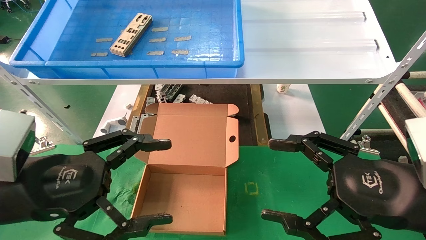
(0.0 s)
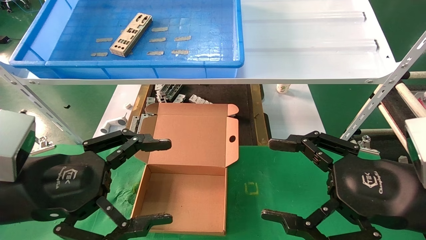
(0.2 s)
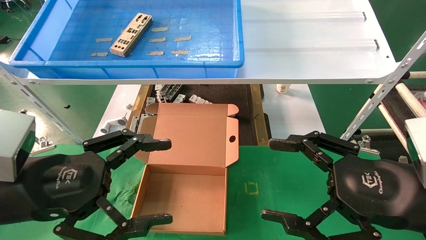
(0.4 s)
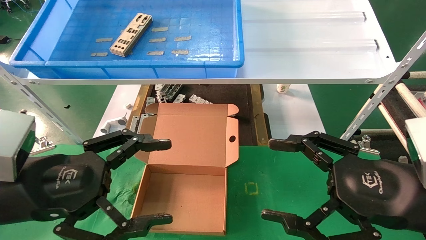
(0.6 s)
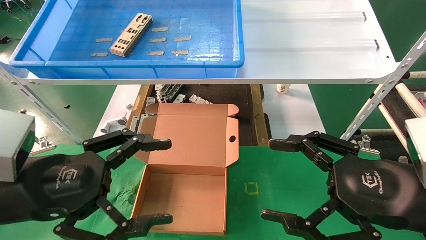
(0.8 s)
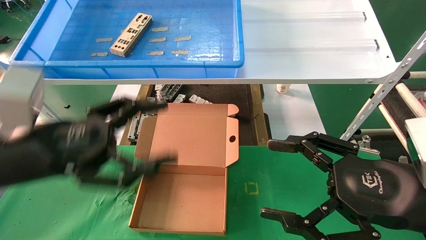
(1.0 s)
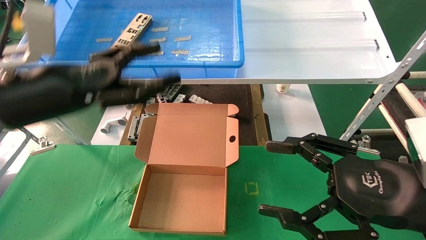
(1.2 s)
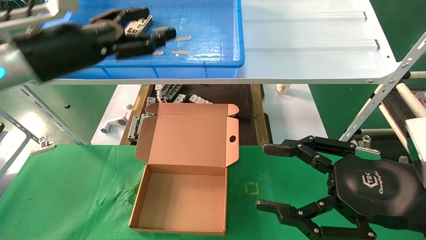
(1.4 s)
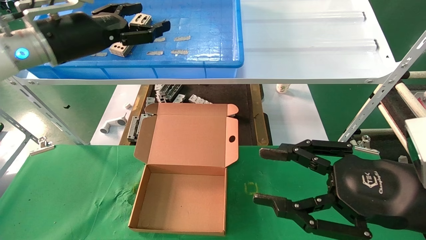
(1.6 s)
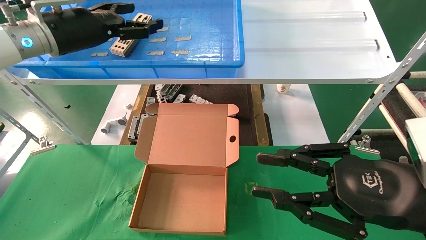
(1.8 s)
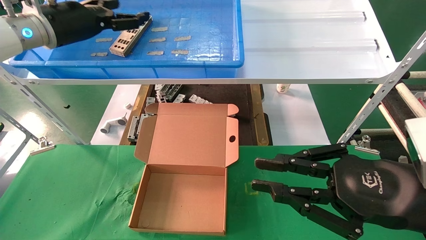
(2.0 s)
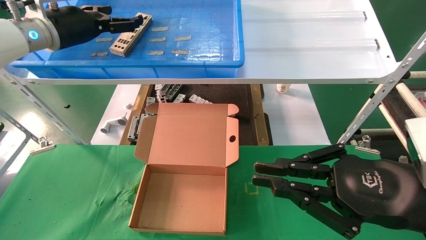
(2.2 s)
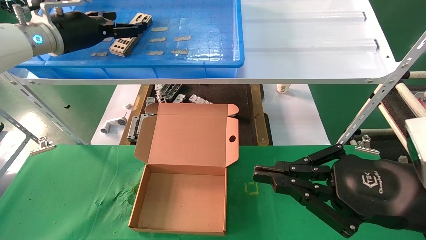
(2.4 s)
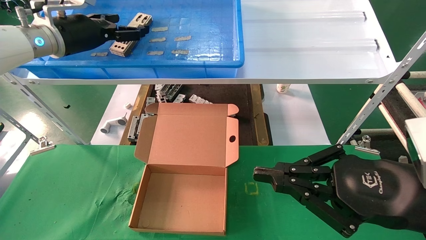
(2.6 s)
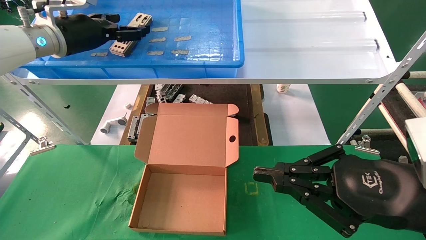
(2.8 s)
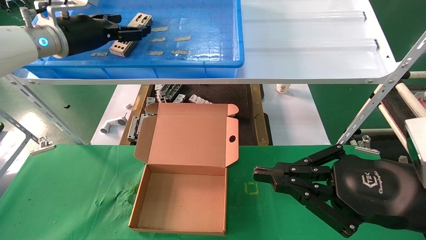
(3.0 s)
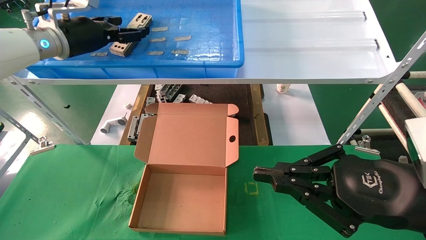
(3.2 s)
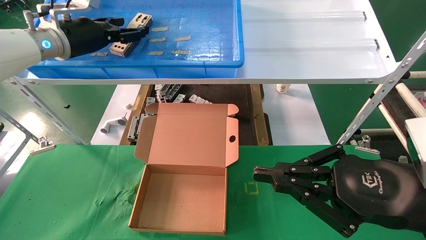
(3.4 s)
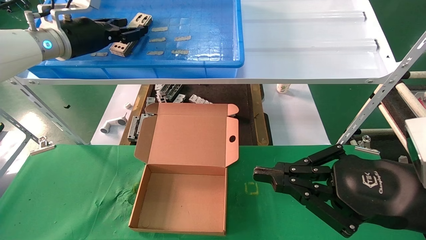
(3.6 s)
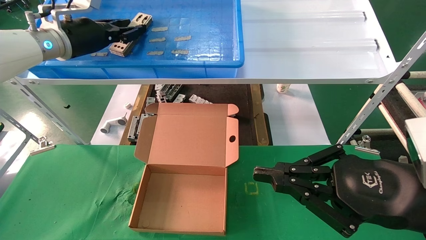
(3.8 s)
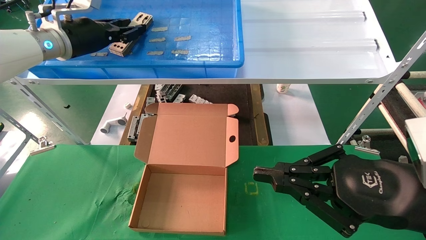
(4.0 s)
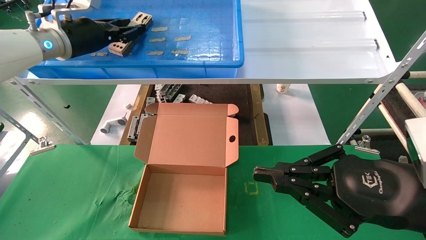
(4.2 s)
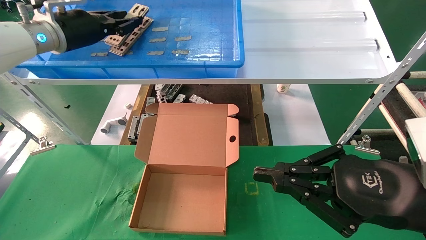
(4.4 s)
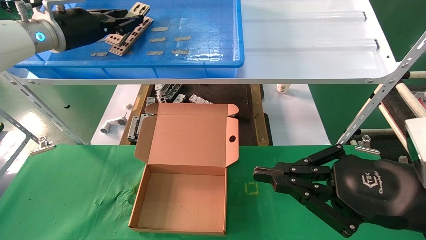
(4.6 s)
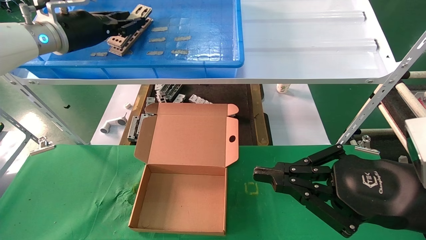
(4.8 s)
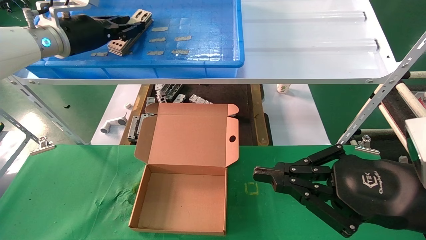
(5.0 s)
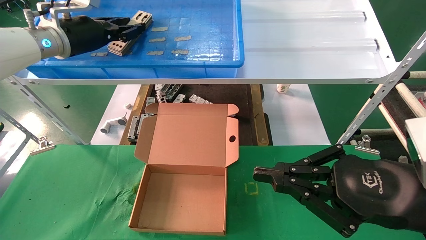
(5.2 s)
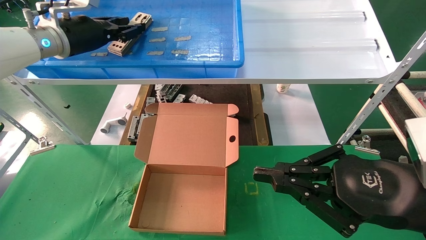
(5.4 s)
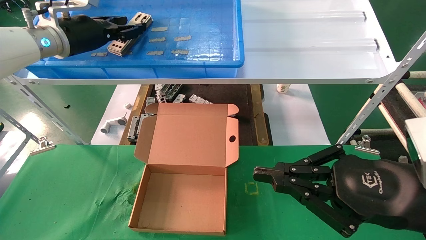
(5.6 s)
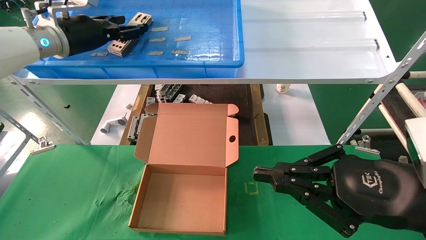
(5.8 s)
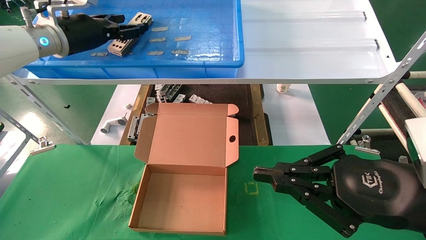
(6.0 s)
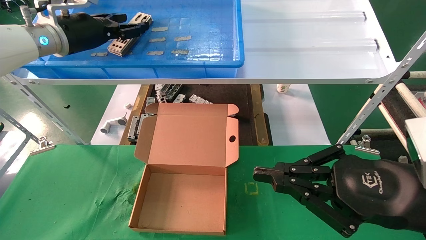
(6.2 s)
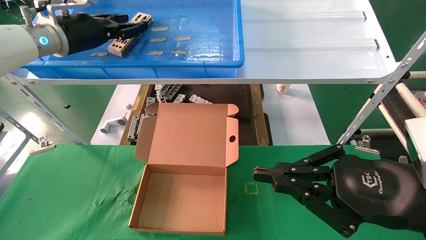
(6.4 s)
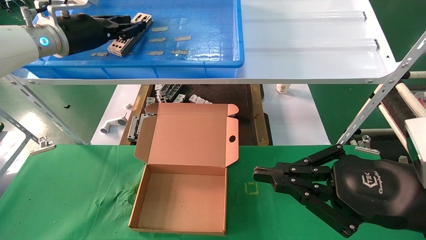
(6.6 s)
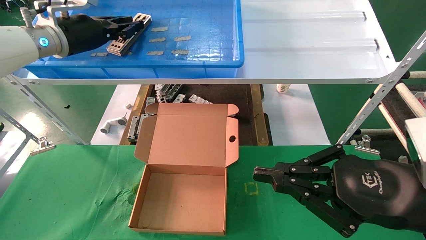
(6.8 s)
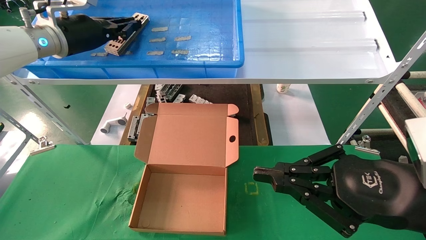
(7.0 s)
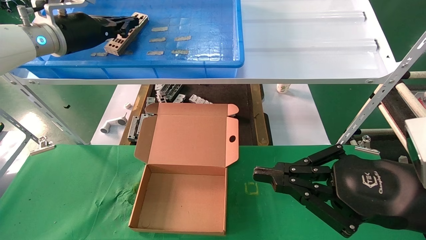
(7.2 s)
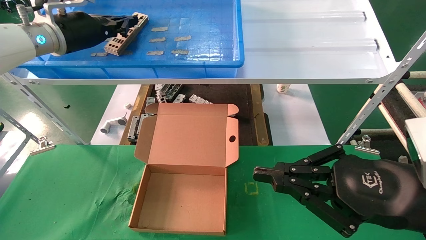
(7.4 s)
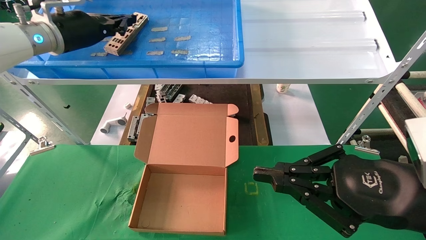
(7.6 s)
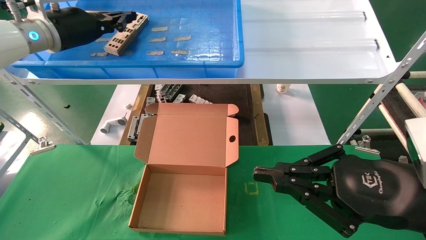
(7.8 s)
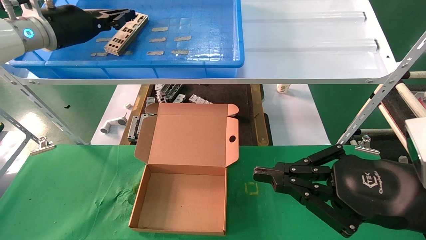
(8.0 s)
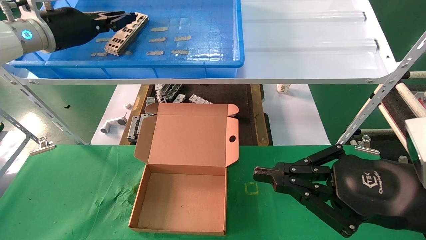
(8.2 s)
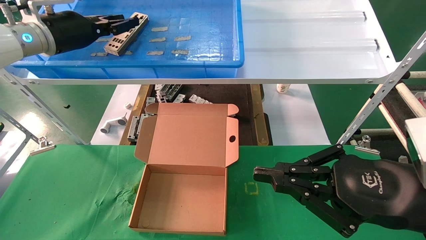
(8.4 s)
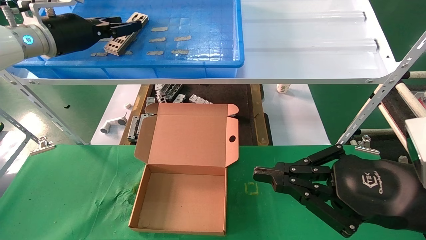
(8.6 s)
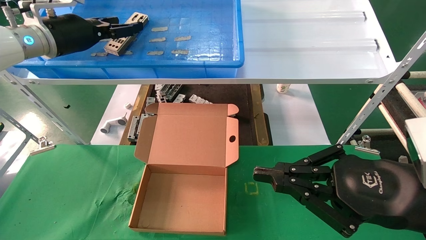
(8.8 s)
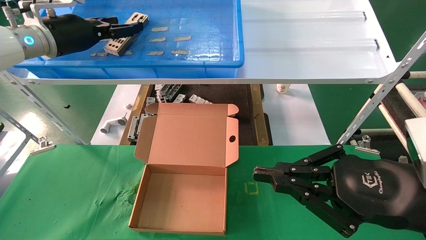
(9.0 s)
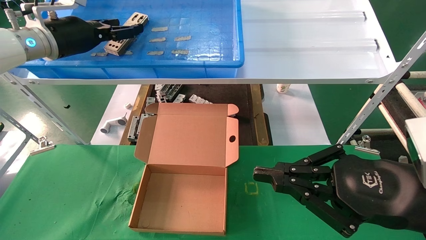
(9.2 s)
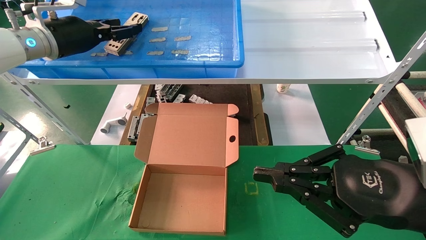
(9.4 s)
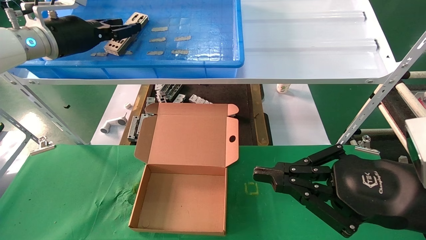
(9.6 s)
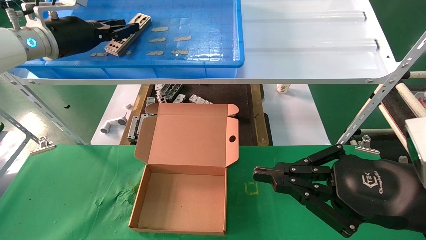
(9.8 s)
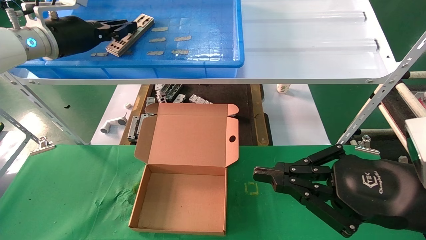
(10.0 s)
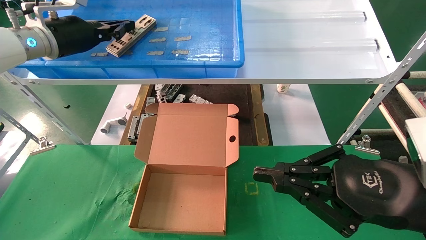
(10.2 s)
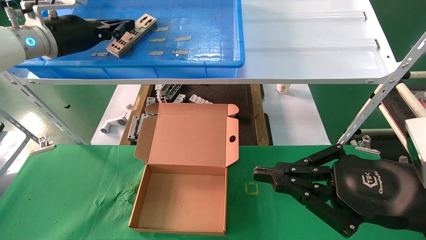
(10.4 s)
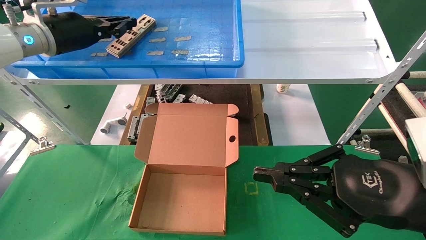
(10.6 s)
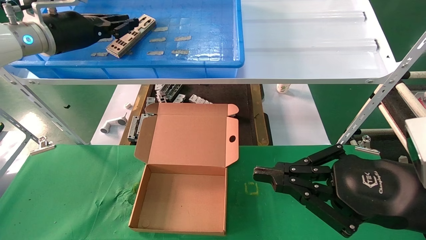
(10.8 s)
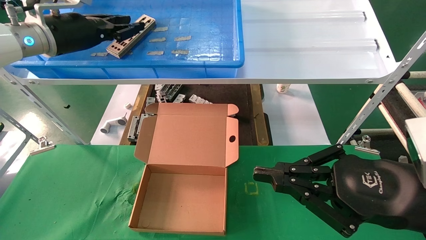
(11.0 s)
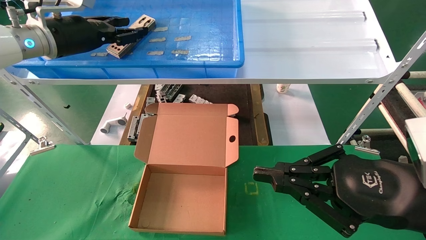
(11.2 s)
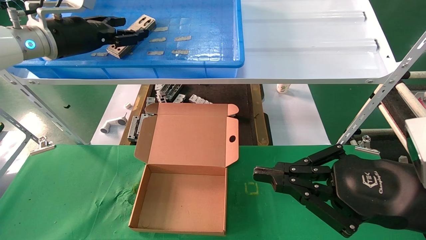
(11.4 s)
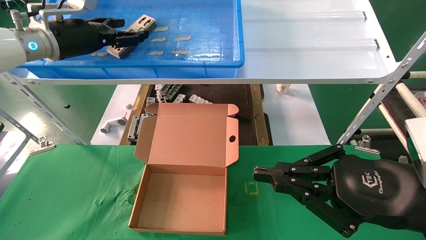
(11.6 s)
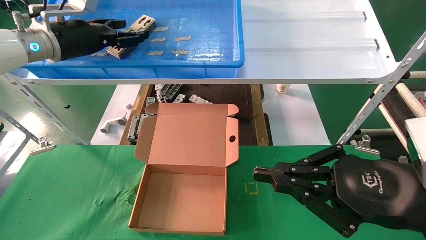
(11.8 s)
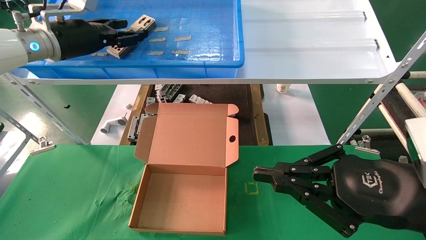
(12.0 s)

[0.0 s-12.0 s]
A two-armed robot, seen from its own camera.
Task of the whole recording: pick up the parts on the tray and put them in the cardboard box.
0.0 to 1.6 s: The left gripper travels forward and upward by roughly 25 cm.
1.6 to 3.0 s: The right gripper closes its fingers, while the left gripper shifts some 5 cm forward.
3.0 to 4.4 s: The left gripper closes up.
4.4 to 6.0 s: Both grippers stay put.
6.0 to 7.6 s: The left gripper closes up.
7.6 to 9.0 s: The left gripper opens up.
9.0 to 10.4 s: The left gripper closes up.
10.4 to 12.0 s: The left gripper opens.

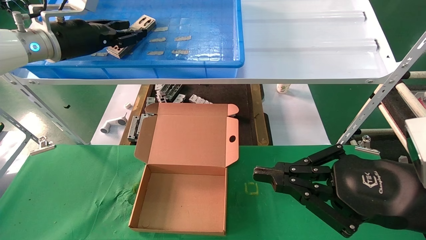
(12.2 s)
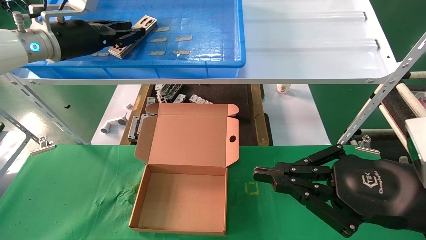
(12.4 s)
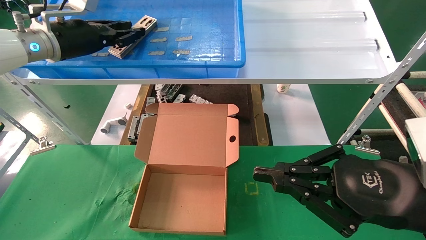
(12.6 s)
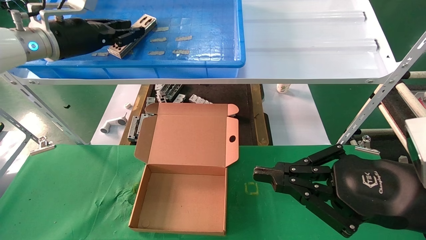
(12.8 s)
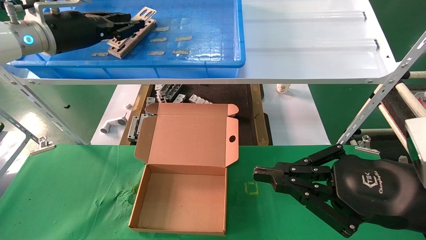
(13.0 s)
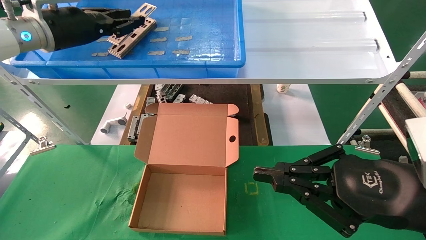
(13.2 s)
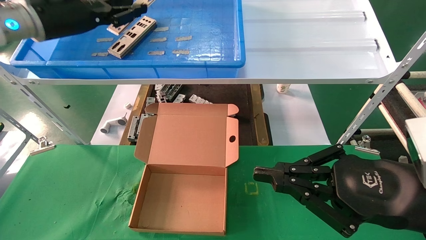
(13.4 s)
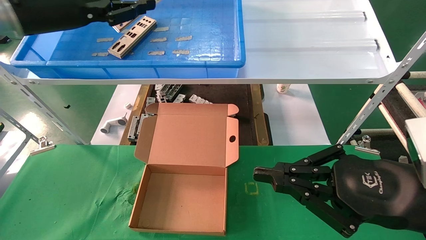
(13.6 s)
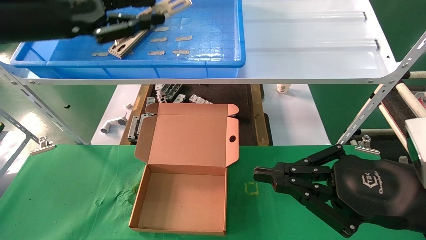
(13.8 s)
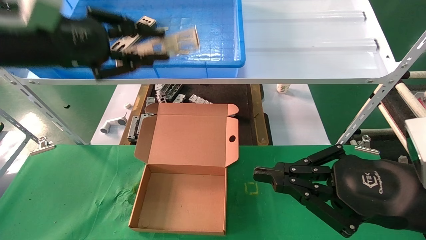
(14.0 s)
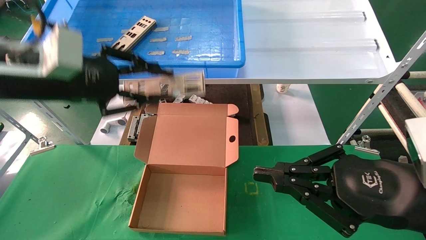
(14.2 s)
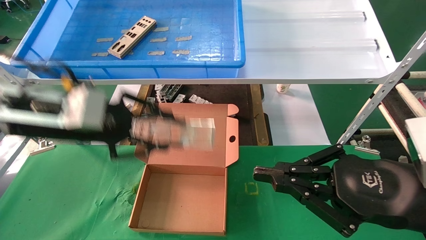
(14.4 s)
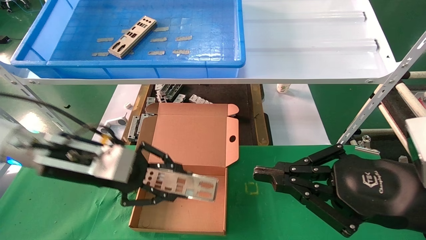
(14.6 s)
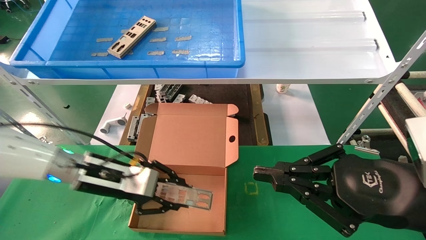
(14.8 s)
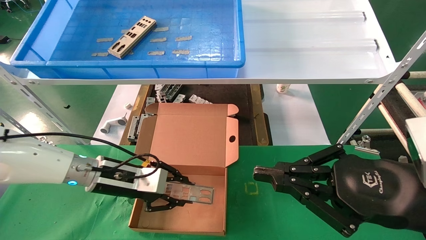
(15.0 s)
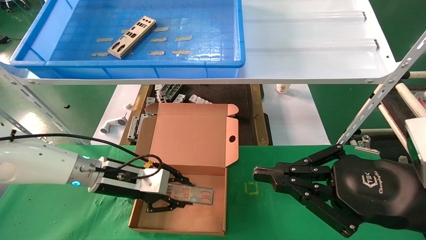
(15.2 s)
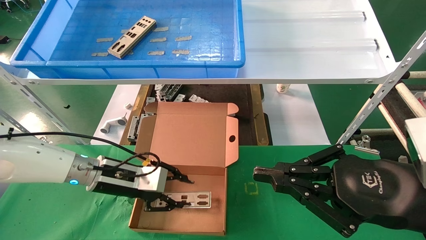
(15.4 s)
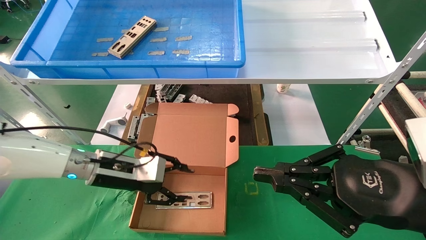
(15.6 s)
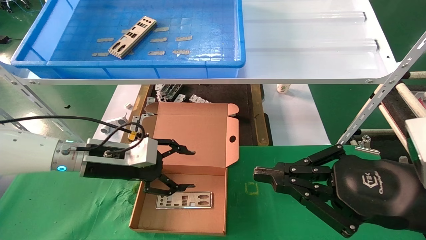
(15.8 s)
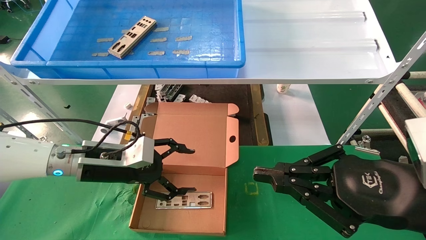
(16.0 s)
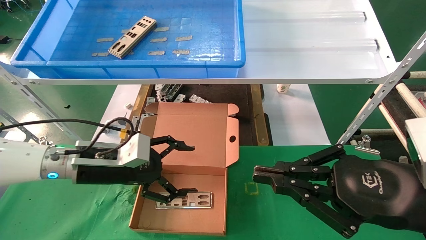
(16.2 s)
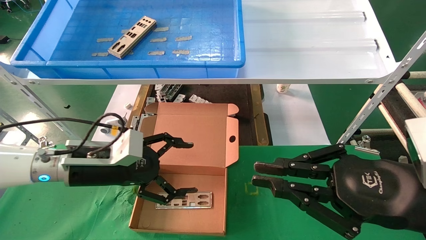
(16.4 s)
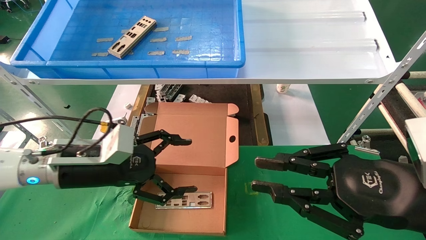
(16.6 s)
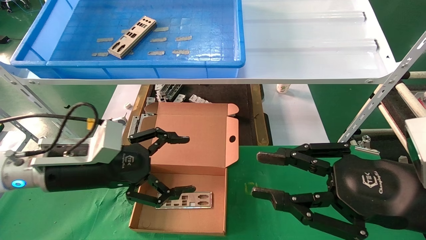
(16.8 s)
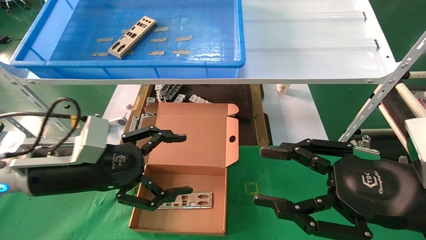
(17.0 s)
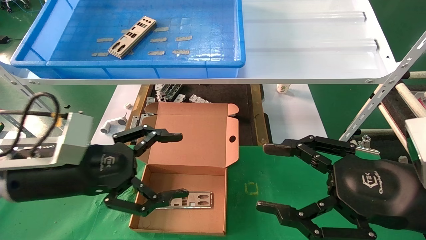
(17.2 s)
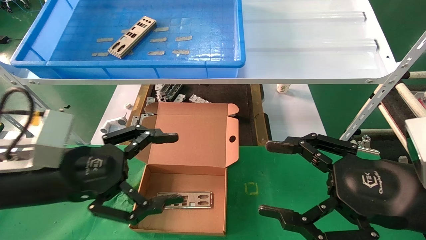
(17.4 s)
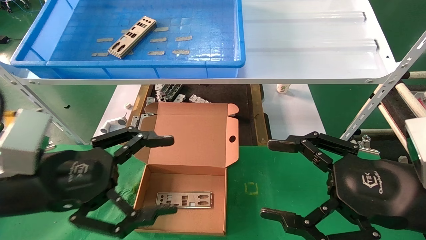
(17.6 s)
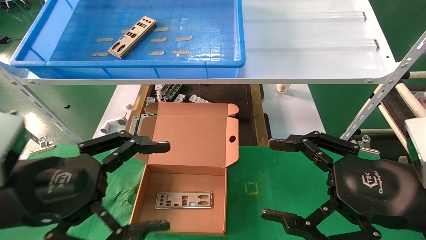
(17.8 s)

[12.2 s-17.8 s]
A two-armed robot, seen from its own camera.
Task of the whole recording: pick up the parts on the tray and put them in the cardboard box.
Step, 13.4 to 15.4 s: Place the IO bracket into the ingredient slot.
12.2 to 13.6 s: The left gripper shifts some 10 cm backward.
13.6 to 15.0 s: The left gripper goes some 30 cm downward.
15.0 to 16.4 s: The left gripper opens up.
16.4 to 17.8 s: The right gripper opens its fingers. The left gripper moves backward, approximately 15 cm.
